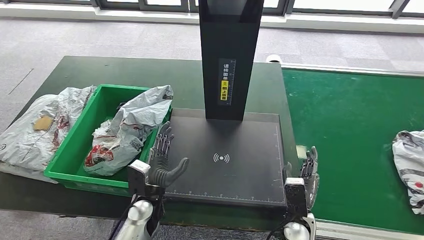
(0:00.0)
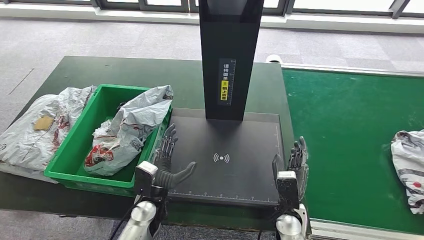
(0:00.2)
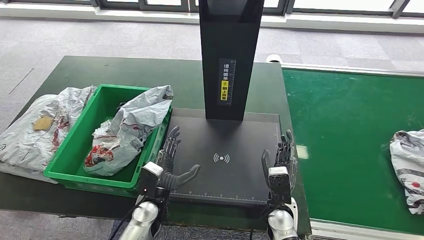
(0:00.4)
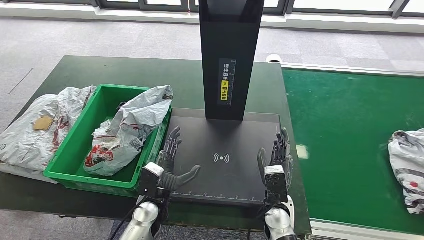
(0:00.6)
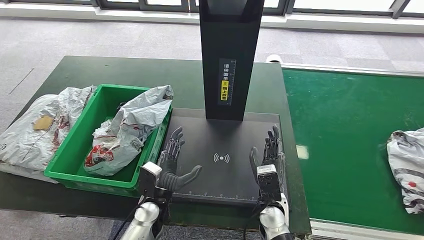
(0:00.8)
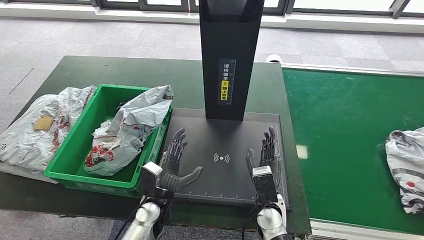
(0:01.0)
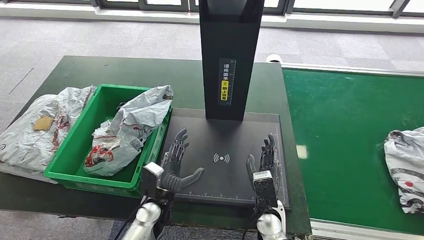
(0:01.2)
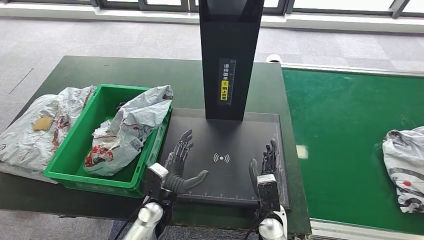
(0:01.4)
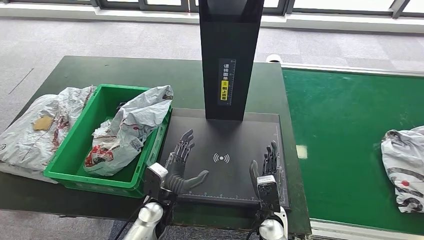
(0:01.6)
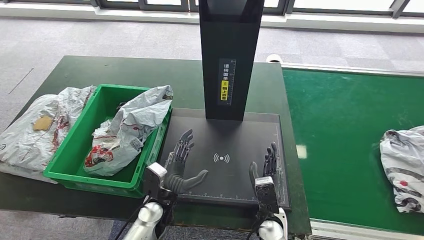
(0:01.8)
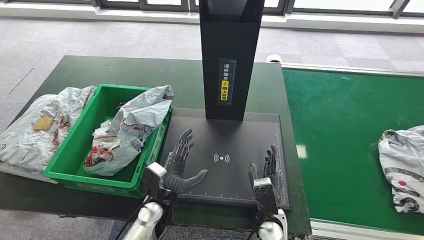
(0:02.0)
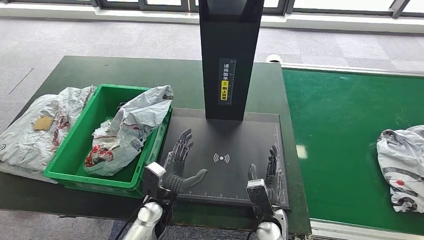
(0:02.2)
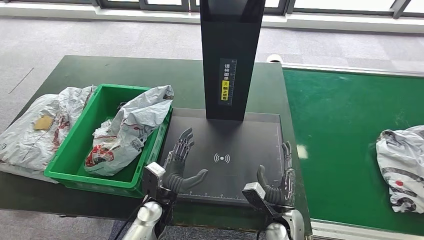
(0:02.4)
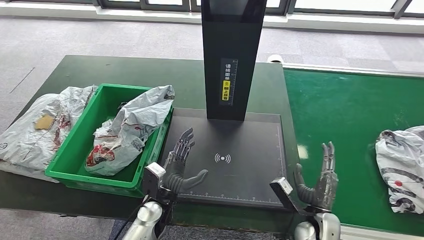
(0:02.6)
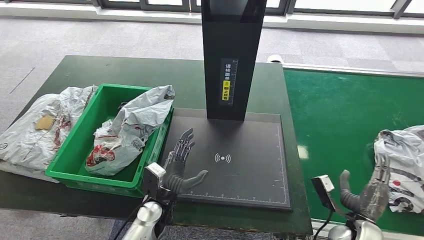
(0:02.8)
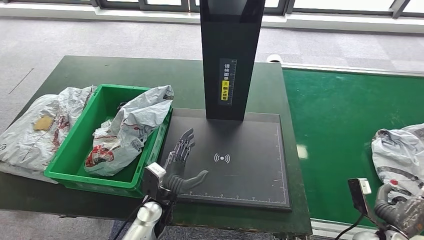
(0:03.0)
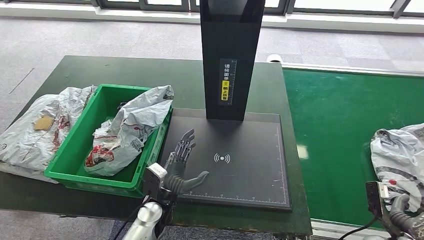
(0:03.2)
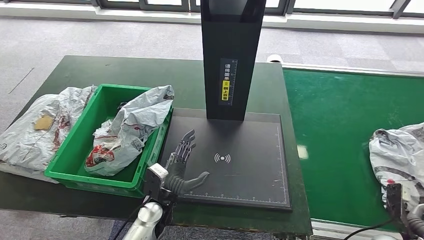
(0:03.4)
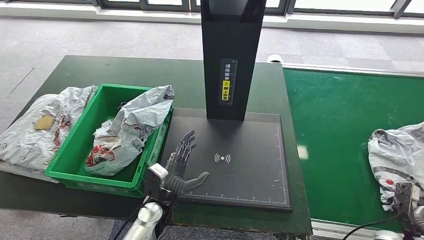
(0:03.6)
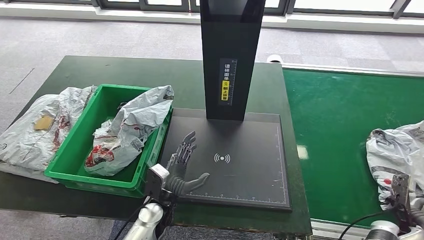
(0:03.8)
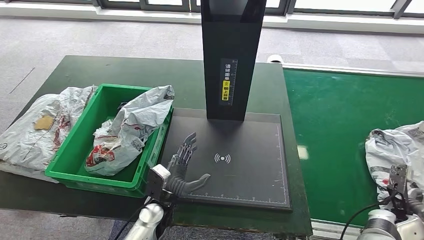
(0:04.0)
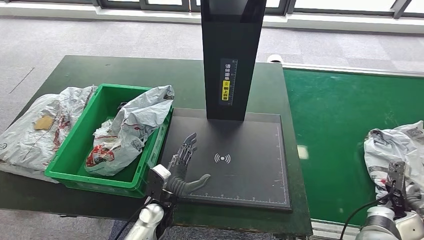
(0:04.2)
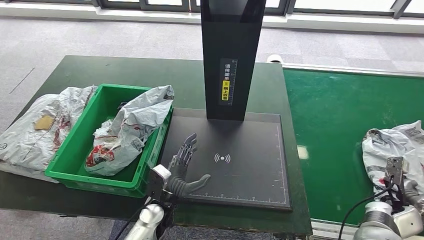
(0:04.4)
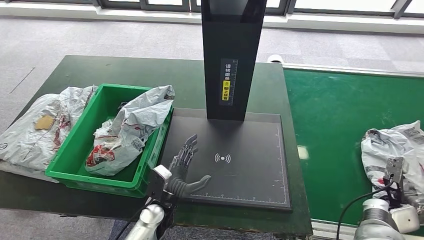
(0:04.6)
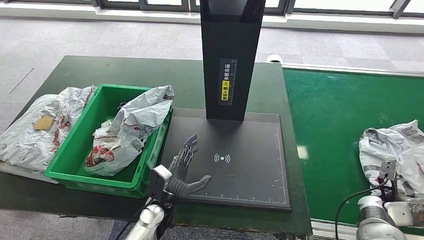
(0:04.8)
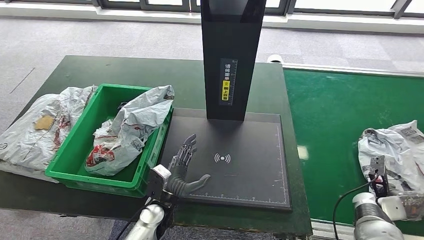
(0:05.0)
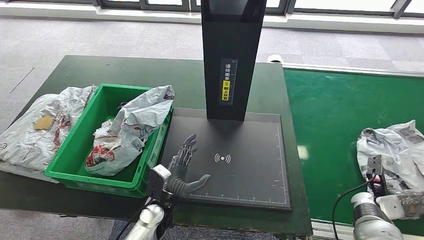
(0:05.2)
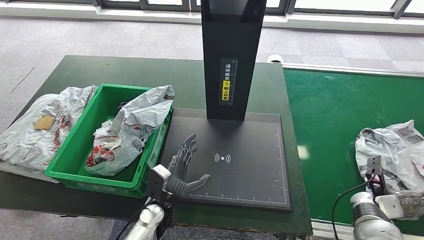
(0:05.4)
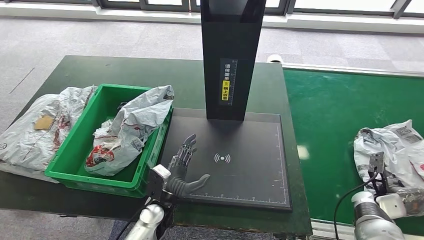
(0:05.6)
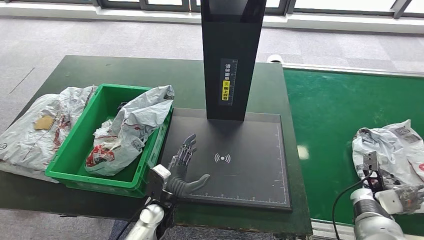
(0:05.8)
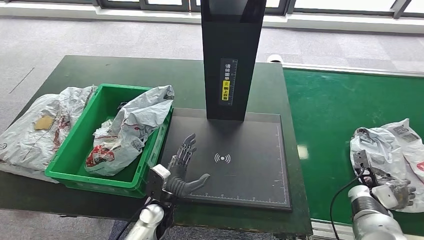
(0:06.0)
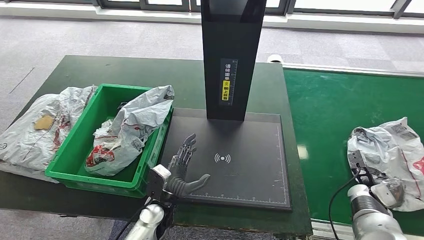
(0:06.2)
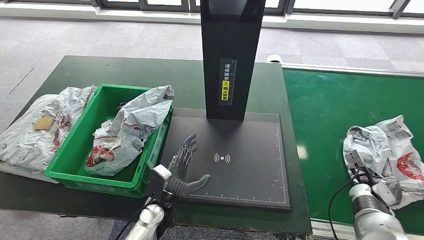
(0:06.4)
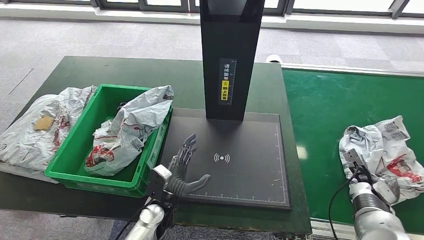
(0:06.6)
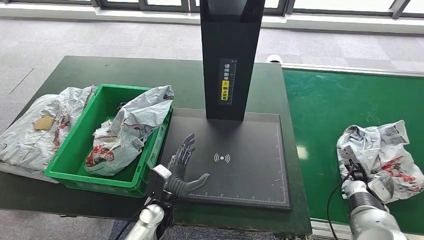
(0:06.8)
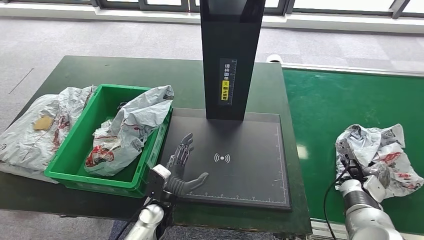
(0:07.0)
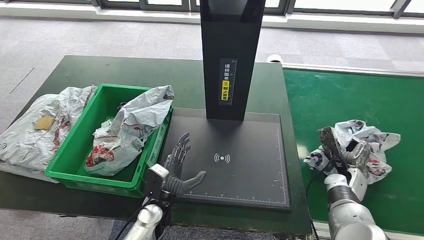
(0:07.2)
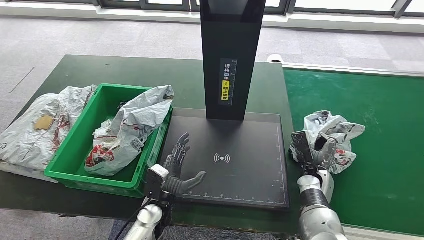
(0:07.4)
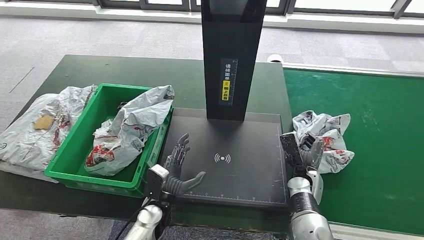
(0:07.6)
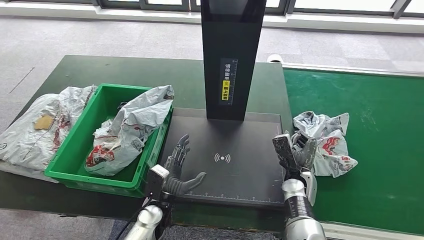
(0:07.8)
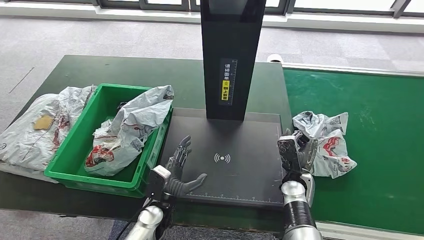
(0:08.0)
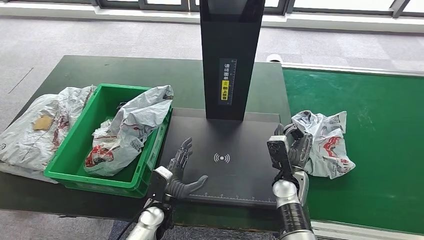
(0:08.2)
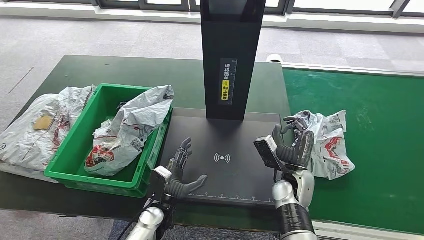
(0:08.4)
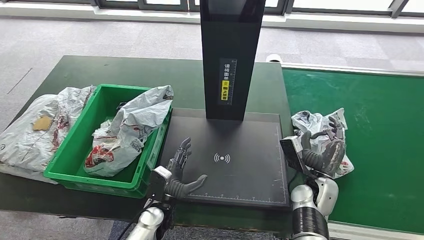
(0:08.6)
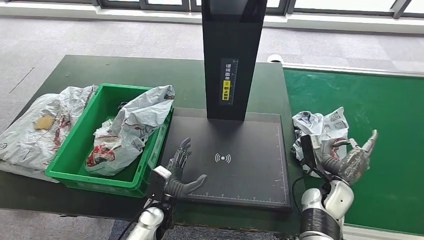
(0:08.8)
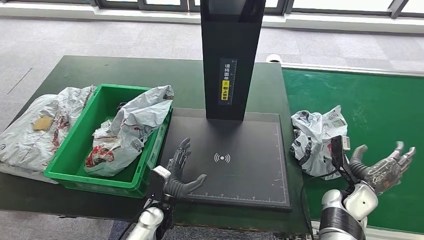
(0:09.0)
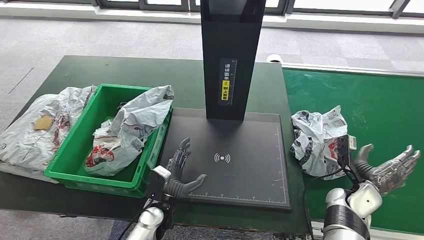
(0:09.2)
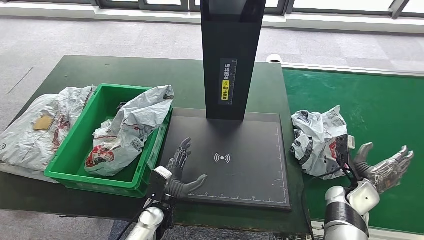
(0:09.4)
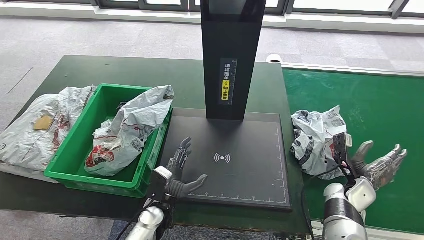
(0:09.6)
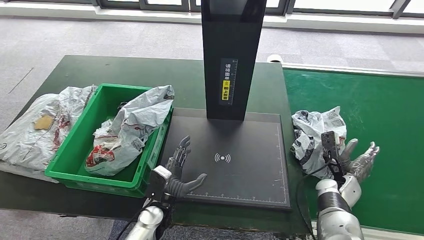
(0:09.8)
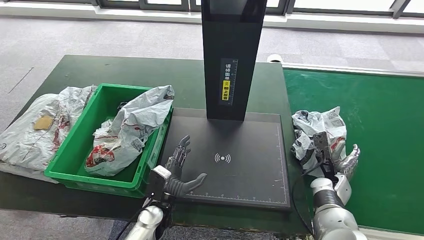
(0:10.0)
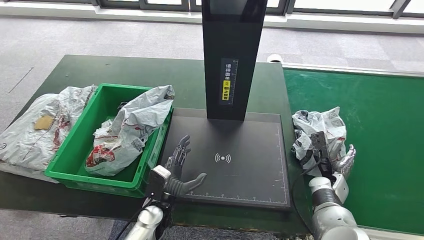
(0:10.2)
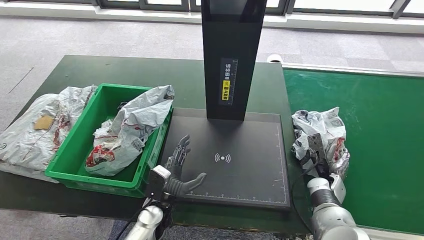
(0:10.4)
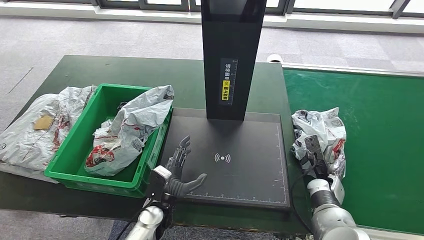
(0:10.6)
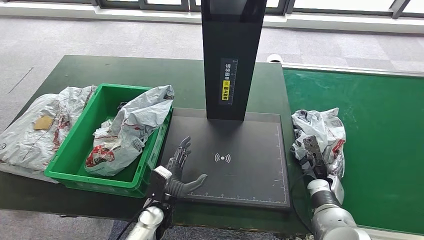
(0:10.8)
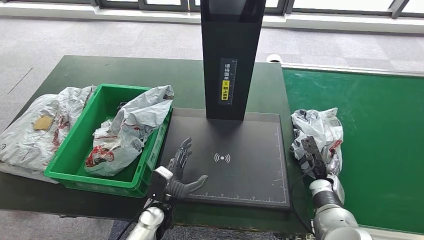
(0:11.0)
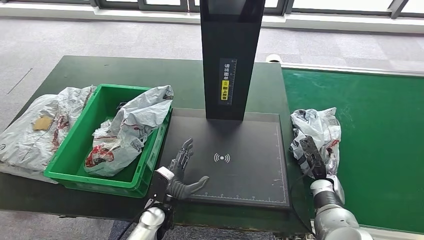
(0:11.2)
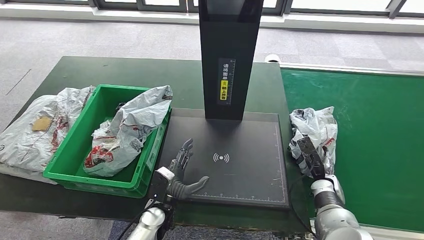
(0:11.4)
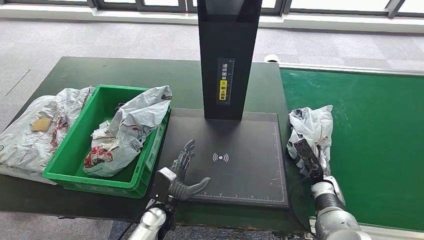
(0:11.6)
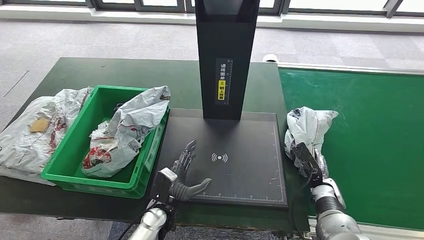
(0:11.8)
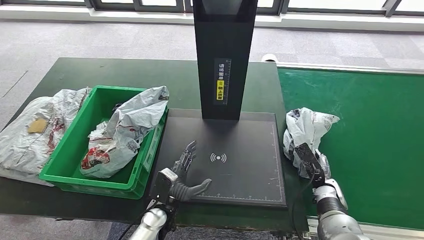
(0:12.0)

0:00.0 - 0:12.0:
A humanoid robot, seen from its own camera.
0:00.0 - 0:01.6: The right hand heads to the left, covering some 5 cm.
0:01.6 - 0:03.0: The right hand goes some 30 cm to the right.
0:03.0 - 0:04.4: The right hand goes some 10 cm forward and to the right.
0:04.4 - 0:06.0: The right hand moves approximately 5 cm.
0:06.0 - 0:07.6: The right hand goes about 20 cm to the left.
0:07.6 - 0:09.0: The right hand moves to the right, about 10 cm.
0:09.0 - 0:10.4: The right hand moves roughly 5 cm.

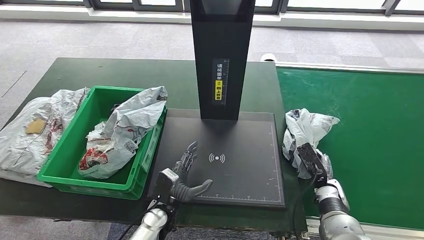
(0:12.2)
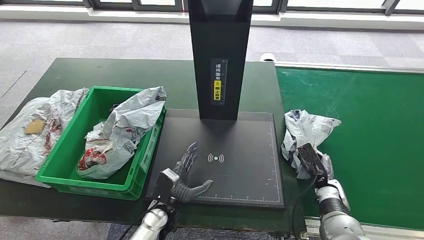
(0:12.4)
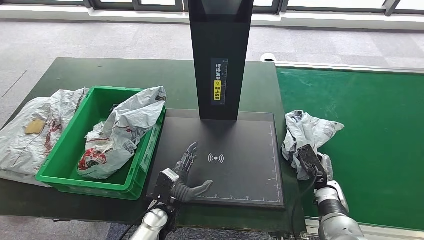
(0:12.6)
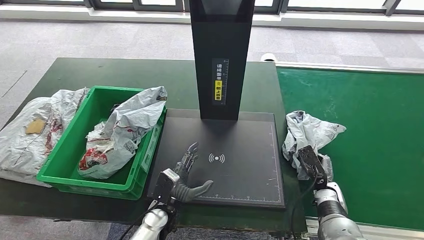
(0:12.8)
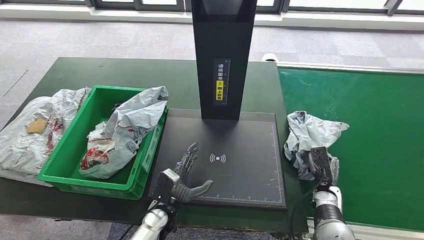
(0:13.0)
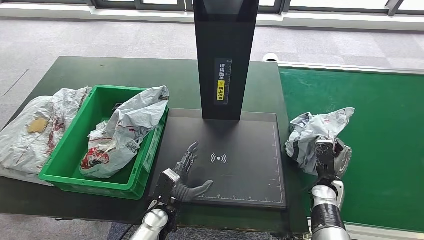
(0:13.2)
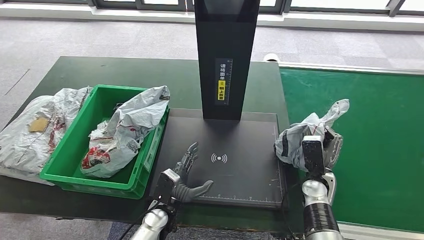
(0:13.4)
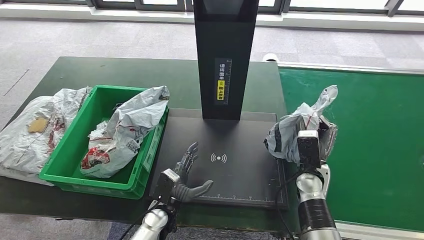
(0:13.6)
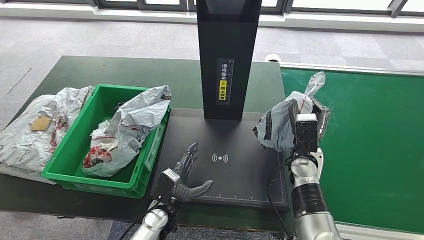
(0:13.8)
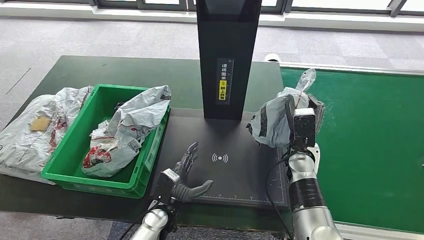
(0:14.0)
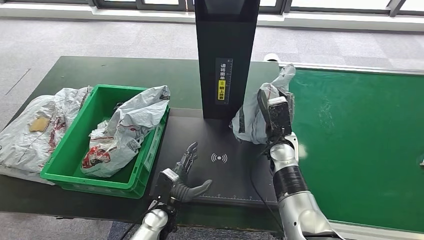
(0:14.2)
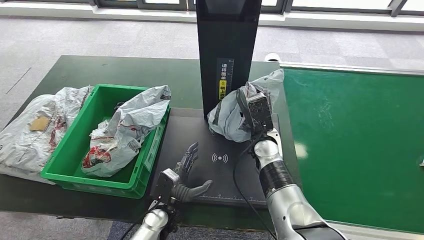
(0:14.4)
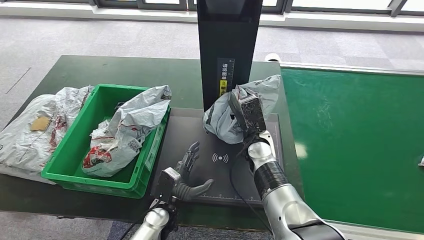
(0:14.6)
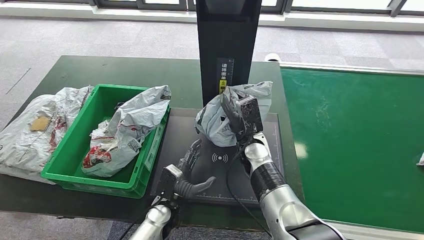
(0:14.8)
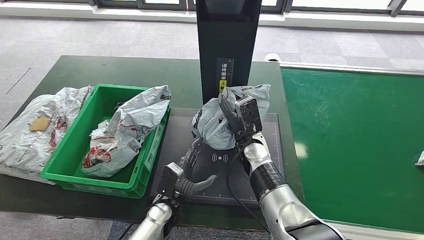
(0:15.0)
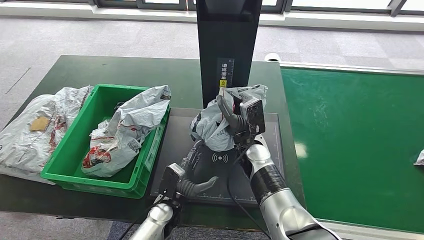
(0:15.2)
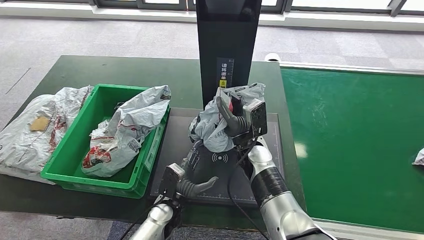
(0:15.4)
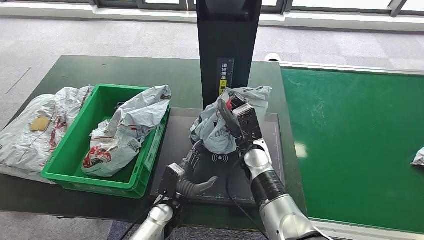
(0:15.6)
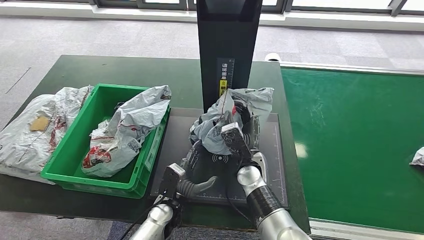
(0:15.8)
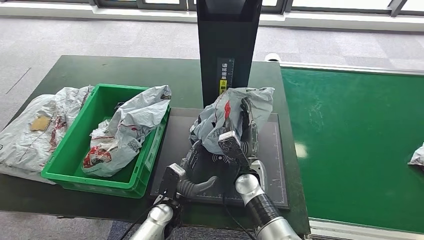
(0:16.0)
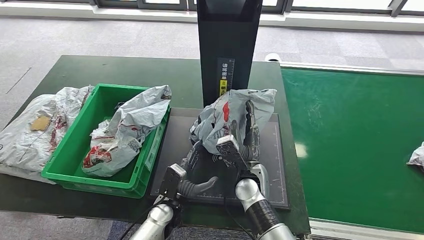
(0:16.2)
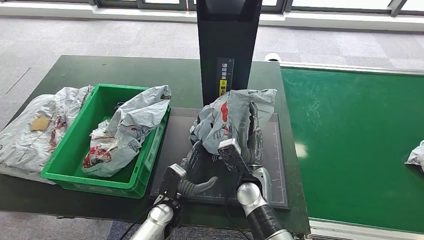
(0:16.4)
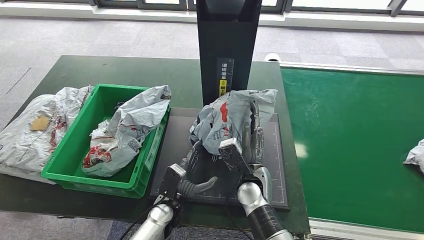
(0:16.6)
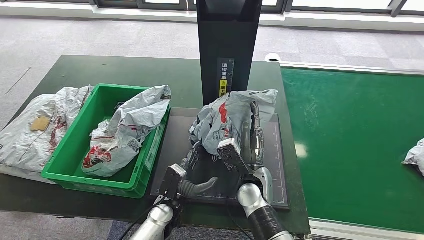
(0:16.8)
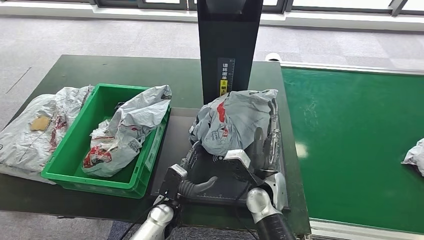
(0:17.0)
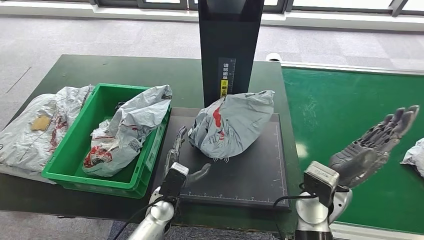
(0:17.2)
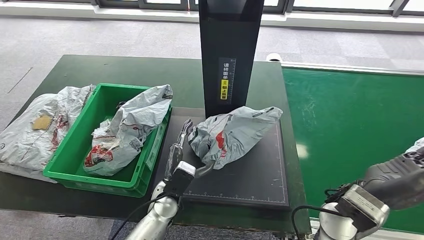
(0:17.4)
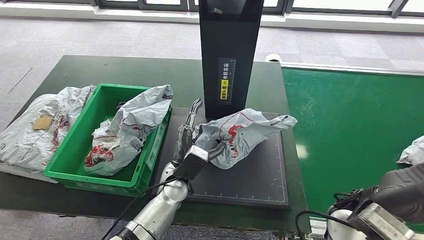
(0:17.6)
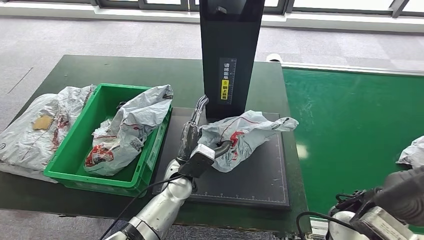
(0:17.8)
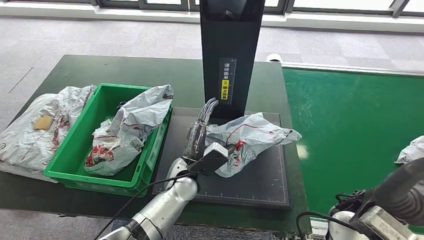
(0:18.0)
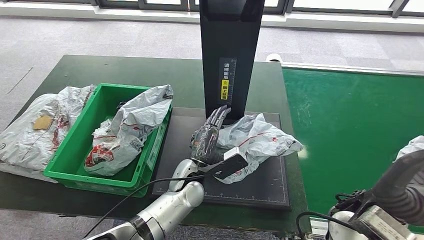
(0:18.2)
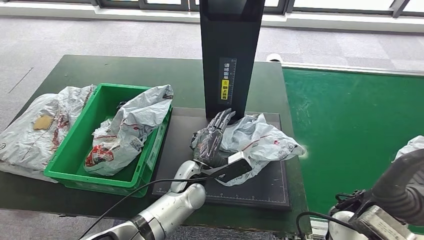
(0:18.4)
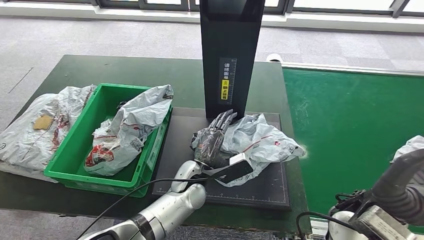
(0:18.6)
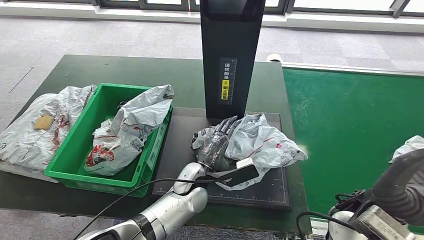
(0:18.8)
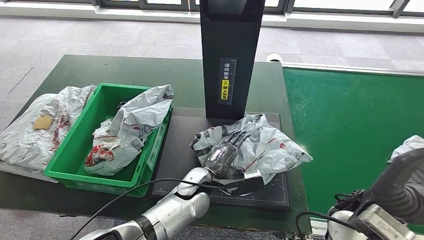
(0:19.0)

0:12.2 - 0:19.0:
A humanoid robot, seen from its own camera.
Step, 0:14.0 - 0:17.8: Place the parcel onto the inbound machine.
0:12.2 - 0:13.6: The right hand is displaced upward and to the left by roughly 10 cm.
0:15.0 - 0:16.2: The right hand goes about 5 cm backward.
